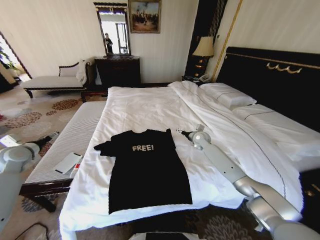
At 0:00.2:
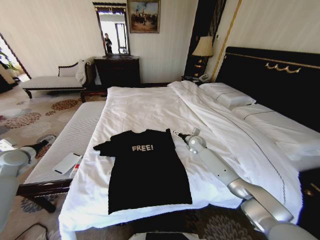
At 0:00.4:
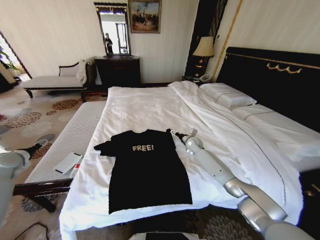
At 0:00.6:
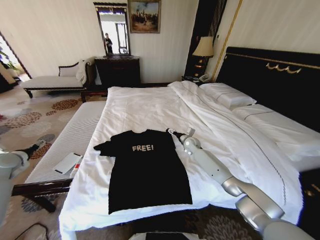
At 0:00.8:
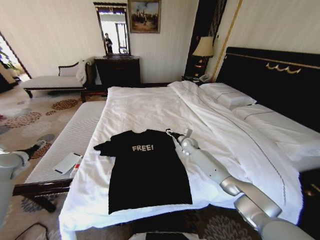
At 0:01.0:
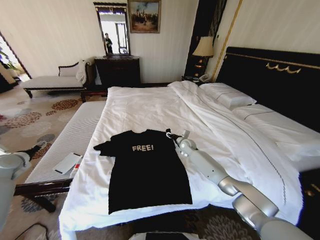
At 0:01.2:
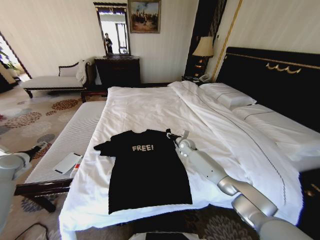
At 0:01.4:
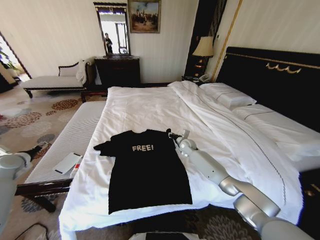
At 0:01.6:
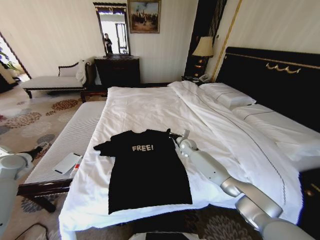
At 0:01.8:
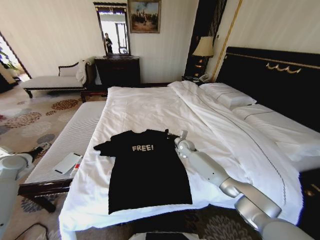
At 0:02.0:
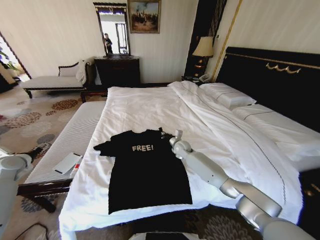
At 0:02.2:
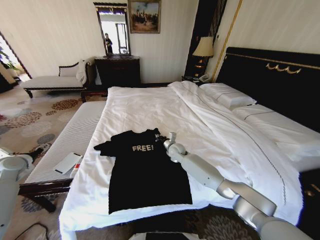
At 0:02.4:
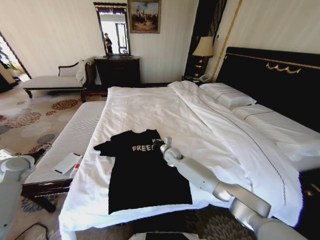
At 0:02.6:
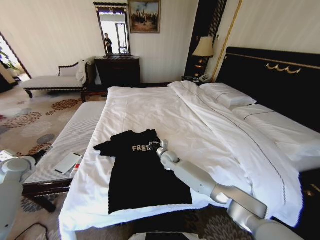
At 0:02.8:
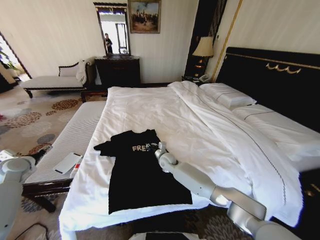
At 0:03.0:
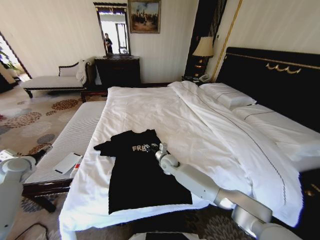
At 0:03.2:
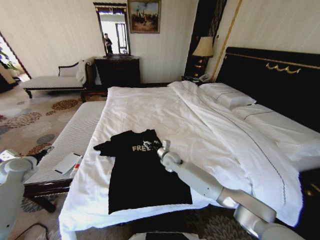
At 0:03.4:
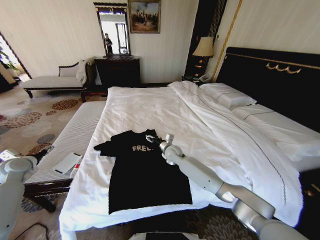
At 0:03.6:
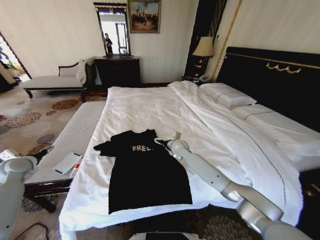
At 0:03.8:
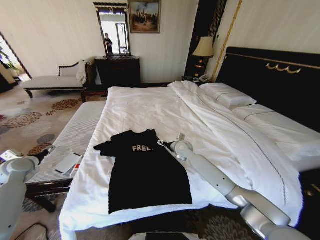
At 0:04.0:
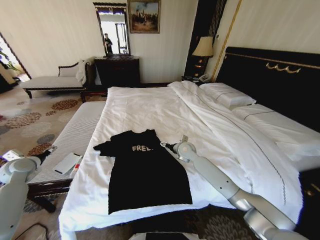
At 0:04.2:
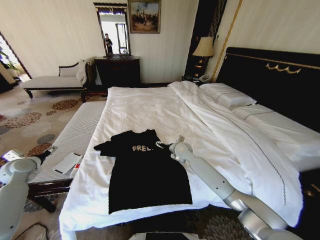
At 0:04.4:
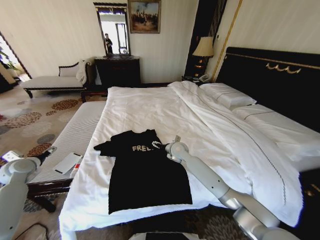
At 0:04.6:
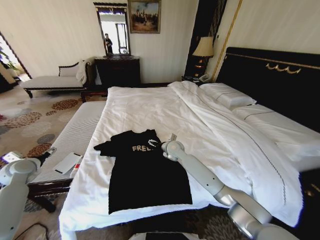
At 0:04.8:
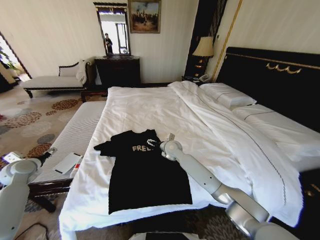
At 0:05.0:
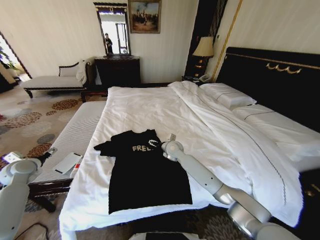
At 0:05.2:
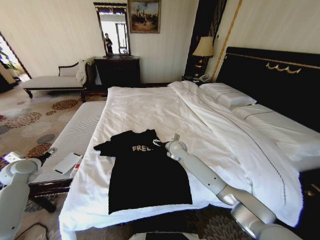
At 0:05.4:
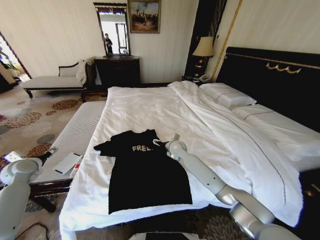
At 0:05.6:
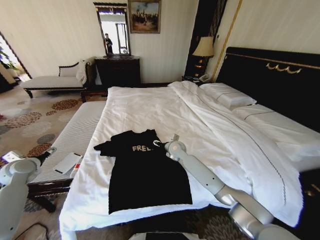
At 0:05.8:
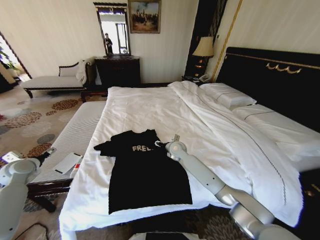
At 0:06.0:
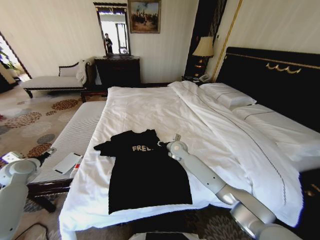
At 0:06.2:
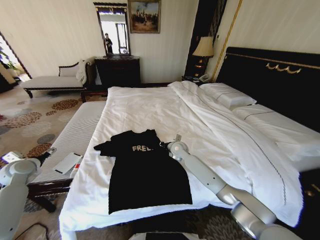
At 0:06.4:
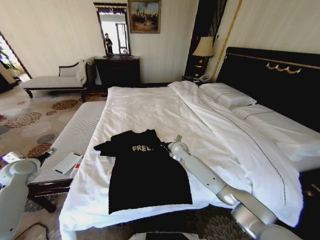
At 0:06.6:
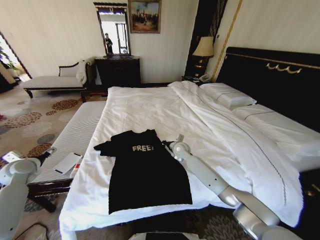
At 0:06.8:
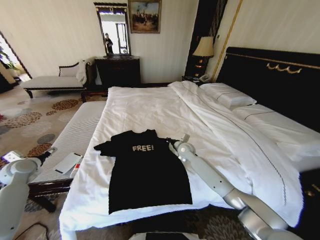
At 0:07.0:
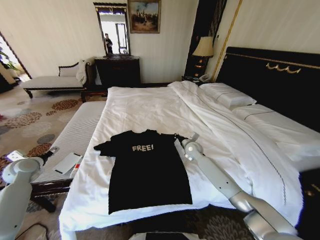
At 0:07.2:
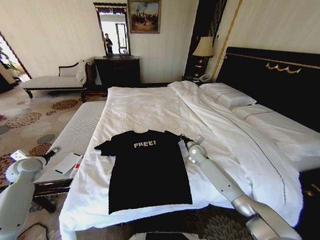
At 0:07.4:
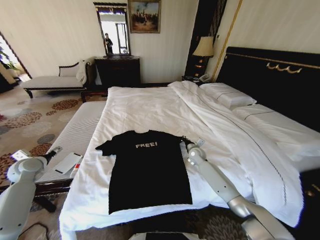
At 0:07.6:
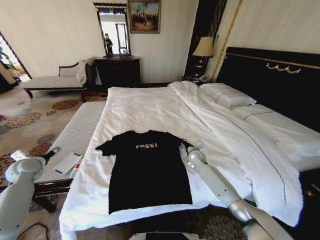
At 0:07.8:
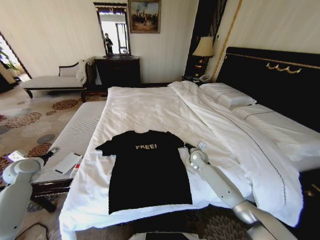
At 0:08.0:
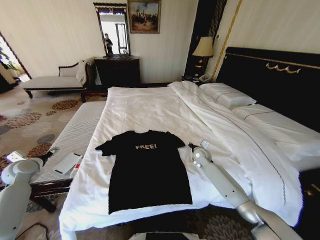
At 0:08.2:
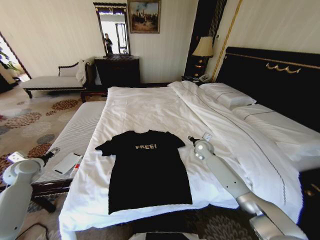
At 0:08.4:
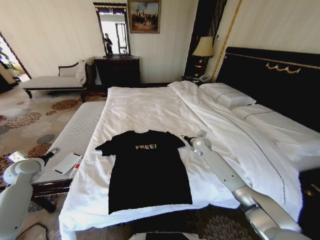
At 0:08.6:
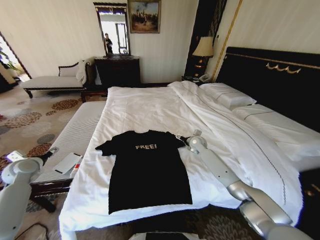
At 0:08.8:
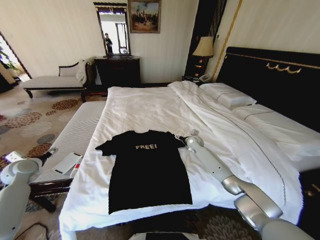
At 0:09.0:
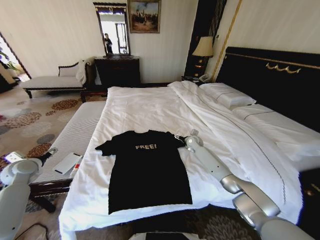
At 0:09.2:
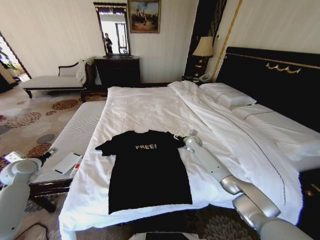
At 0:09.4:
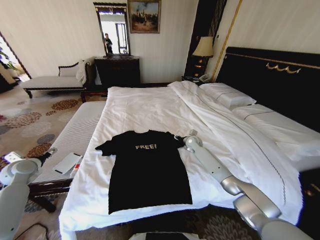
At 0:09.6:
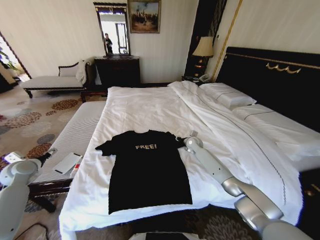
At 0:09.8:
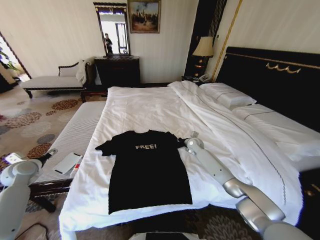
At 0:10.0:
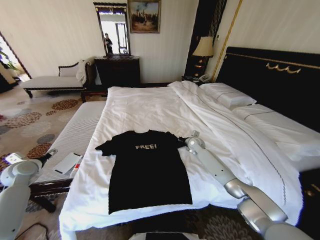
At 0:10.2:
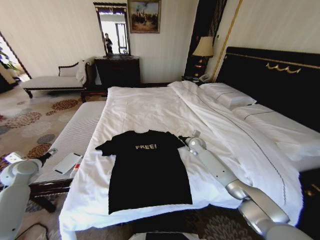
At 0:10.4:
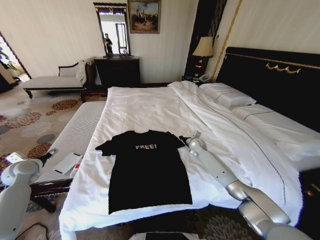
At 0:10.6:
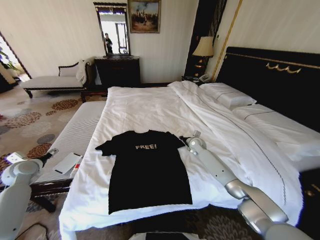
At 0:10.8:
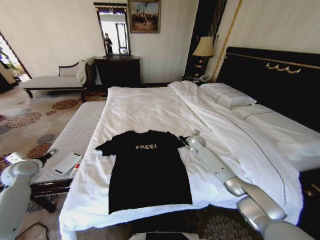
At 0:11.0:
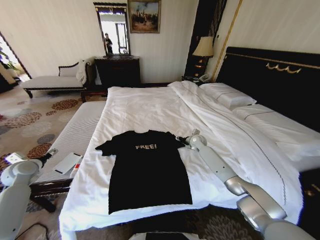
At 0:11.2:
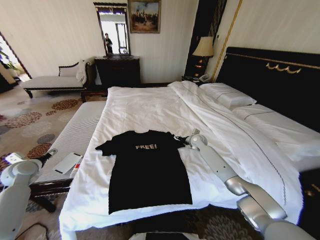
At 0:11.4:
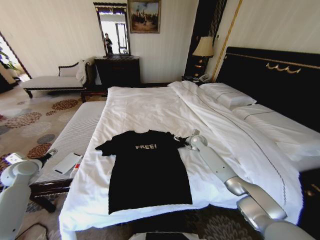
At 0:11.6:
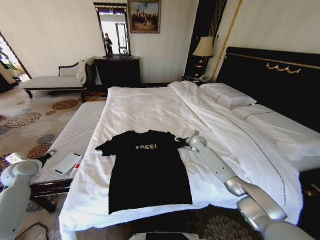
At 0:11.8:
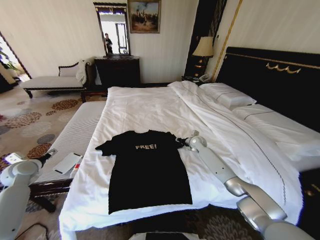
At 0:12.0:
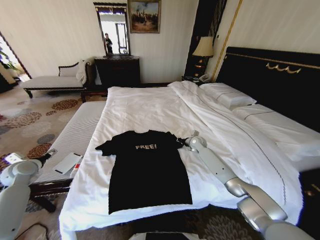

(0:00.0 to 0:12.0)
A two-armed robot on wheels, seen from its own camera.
Task of the whole recording: Fold the clothes on the bed.
0:00.0 - 0:01.6: The right gripper moves to the left and downward, roughly 10 cm, and closes.
0:01.6 - 0:03.0: The right gripper is displaced to the left and backward by roughly 15 cm.
0:03.0 - 0:04.4: The right gripper is displaced upward by roughly 5 cm, and opens its fingers.
0:04.4 - 0:06.0: The right gripper closes its fingers.
0:06.0 - 0:07.6: The right gripper goes some 15 cm to the right and downward, and closes up.
0:07.6 - 0:09.0: The right gripper goes approximately 10 cm forward, and opens.
0:09.0 - 0:10.4: The right gripper closes.
0:10.4 - 0:12.0: The right gripper opens, then closes again.

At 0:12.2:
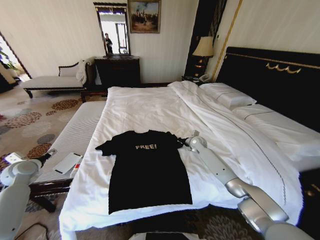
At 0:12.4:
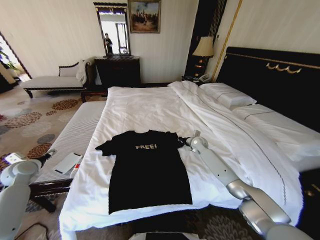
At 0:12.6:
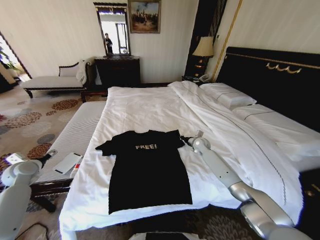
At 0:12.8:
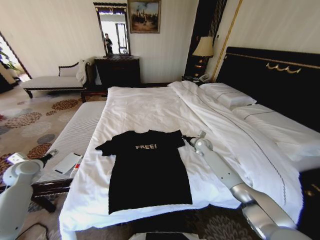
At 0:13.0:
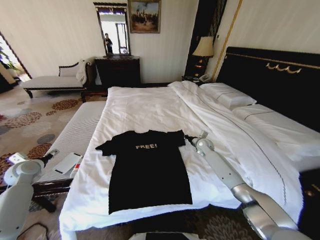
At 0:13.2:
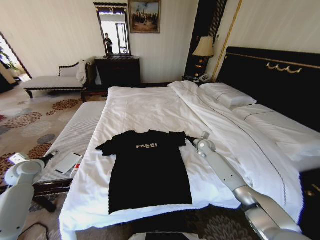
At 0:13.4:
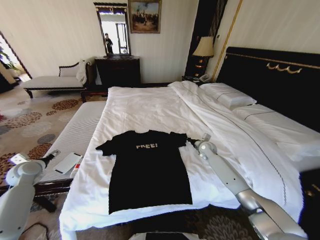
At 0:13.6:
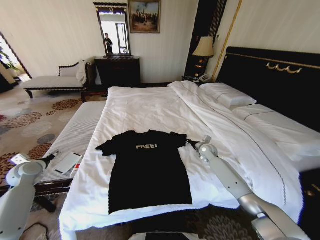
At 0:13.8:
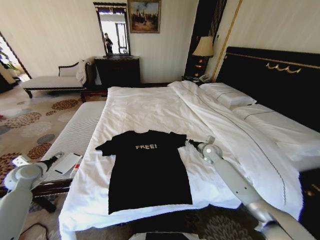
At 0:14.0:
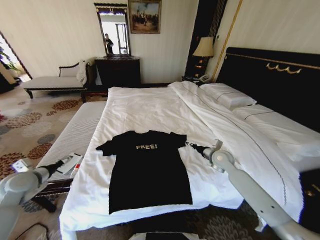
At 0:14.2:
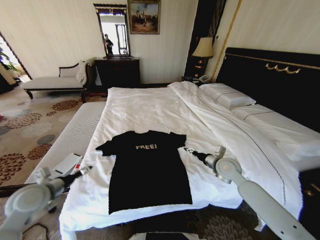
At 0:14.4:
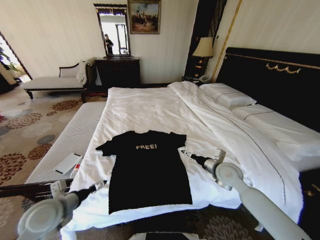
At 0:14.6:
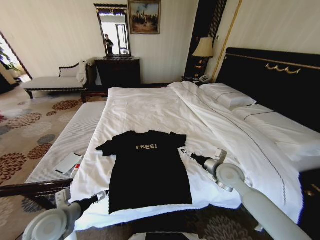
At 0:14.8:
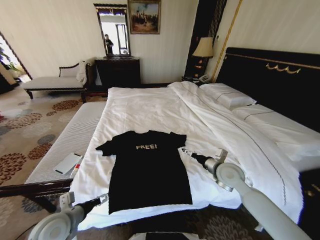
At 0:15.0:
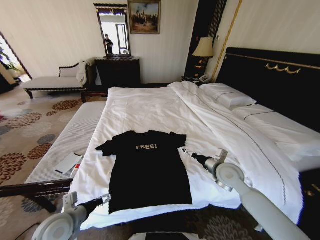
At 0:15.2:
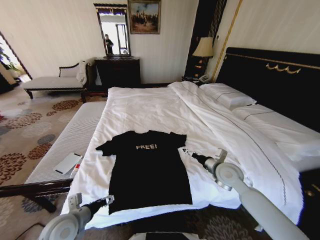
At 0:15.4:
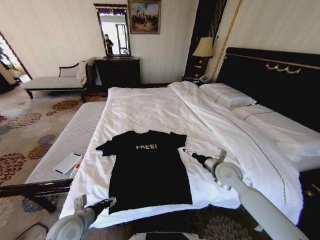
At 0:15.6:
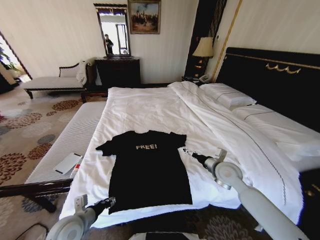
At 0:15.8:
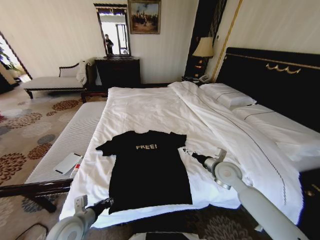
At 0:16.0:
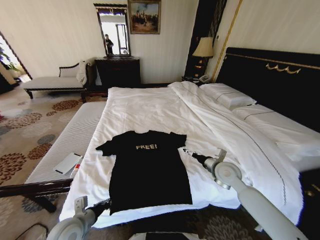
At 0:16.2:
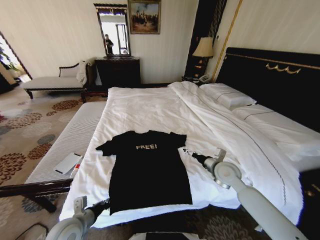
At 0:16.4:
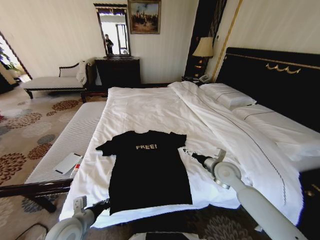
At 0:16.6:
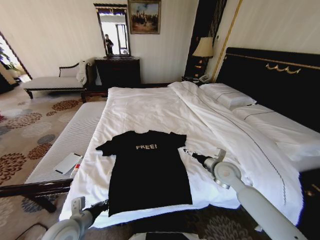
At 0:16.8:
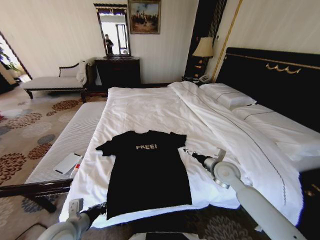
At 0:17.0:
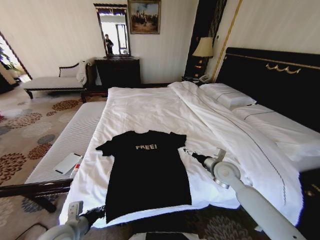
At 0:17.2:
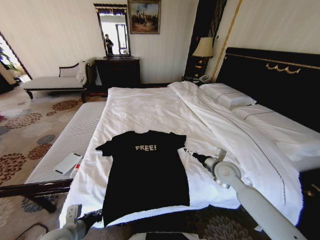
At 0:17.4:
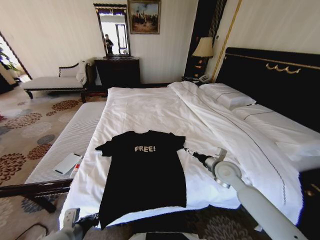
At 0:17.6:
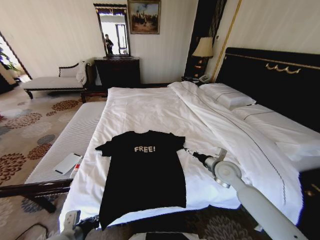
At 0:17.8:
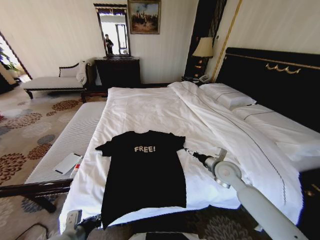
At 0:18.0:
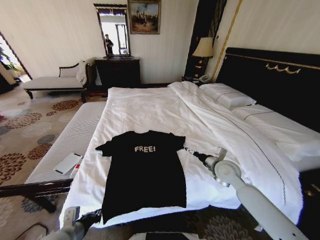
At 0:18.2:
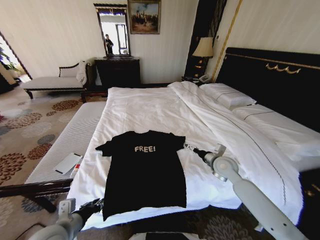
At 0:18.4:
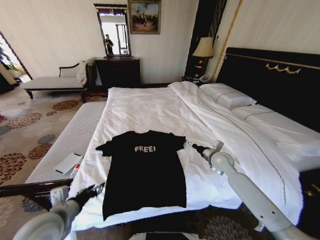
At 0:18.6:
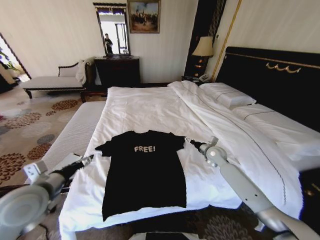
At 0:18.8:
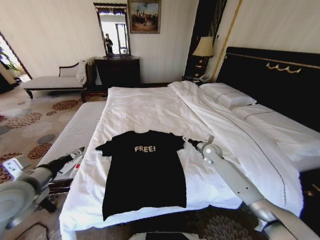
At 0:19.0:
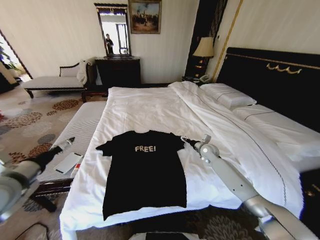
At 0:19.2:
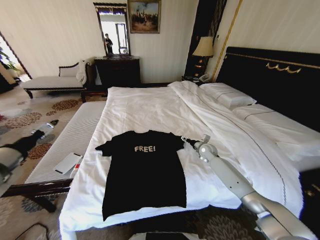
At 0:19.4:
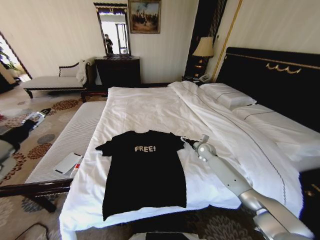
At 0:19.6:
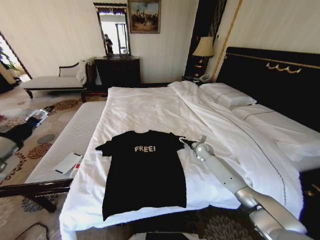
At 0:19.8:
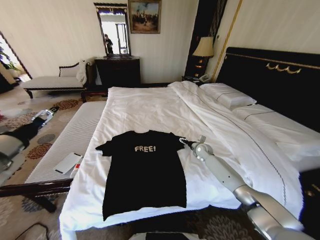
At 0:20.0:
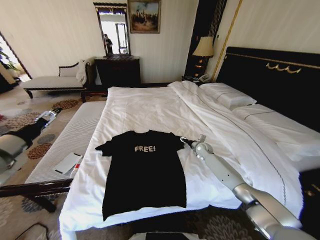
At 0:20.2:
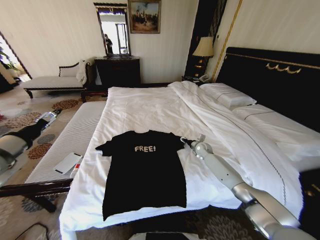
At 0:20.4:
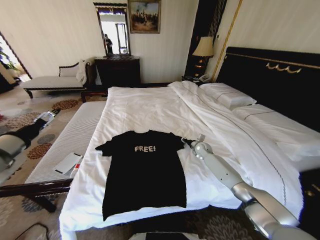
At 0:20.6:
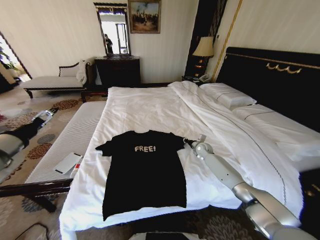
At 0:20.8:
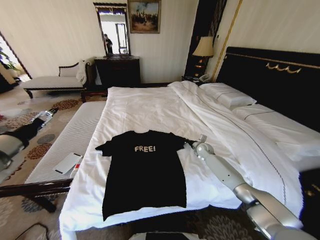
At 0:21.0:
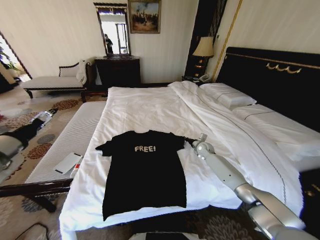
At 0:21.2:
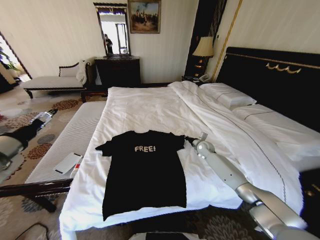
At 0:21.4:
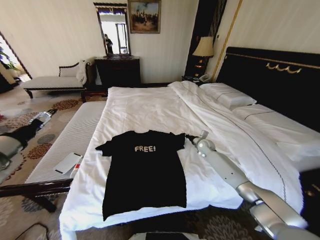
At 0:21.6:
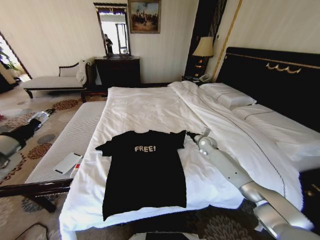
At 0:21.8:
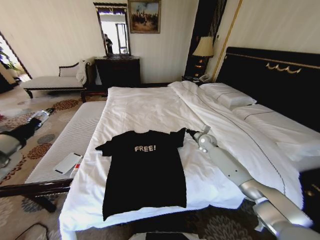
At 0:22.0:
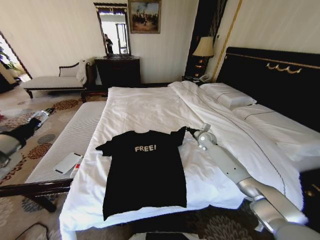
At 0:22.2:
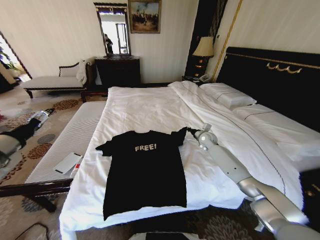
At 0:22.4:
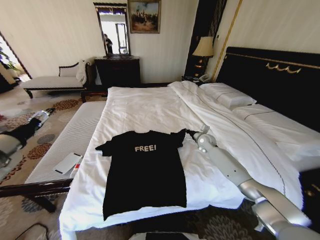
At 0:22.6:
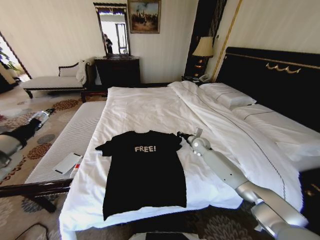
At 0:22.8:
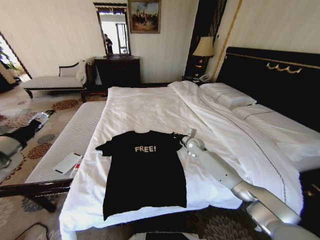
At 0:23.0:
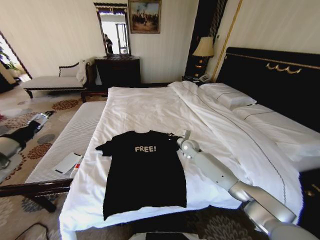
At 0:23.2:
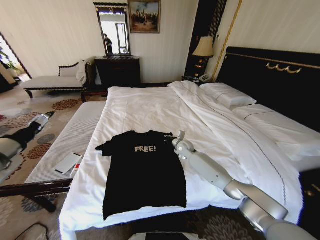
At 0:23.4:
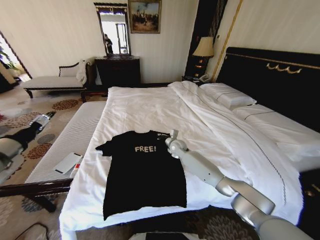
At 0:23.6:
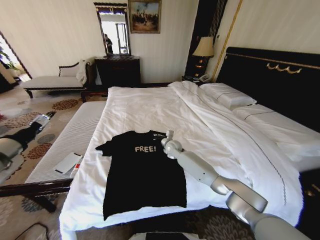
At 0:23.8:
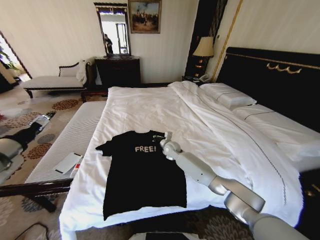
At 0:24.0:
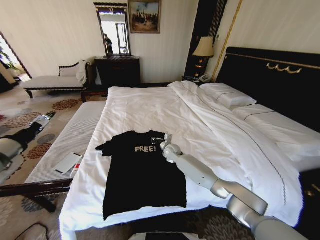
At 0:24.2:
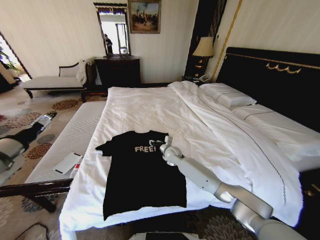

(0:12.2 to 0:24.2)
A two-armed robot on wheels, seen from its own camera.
Task of the whole recording: Fold the clothes on the bed.
0:12.2 - 0:13.8: The right gripper moves backward and to the right, roughly 10 cm.
0:13.8 - 0:15.2: The right gripper moves backward, approximately 15 cm, and opens up, while the left gripper travels to the right and backward by some 30 cm.
0:15.2 - 0:16.6: The left gripper closes its fingers.
0:16.6 - 0:18.2: The left gripper changes place by about 5 cm.
0:18.2 - 0:19.8: The right gripper moves forward and downward, some 20 cm, while the left gripper is displaced upward, to the left and forward by approximately 25 cm, and opens its fingers.
0:19.8 - 0:21.2: The right gripper closes its fingers.
0:21.2 - 0:22.6: The right gripper changes place by some 5 cm.
0:22.6 - 0:24.2: The right gripper travels to the left by some 15 cm.
